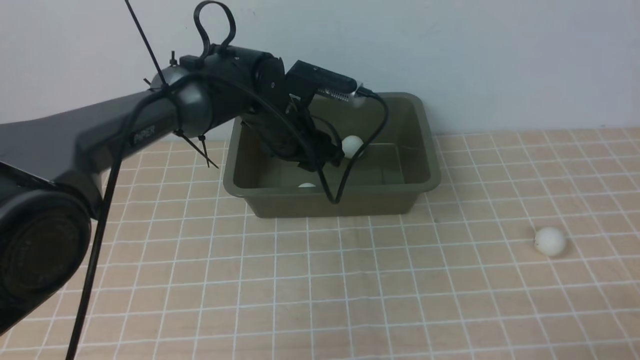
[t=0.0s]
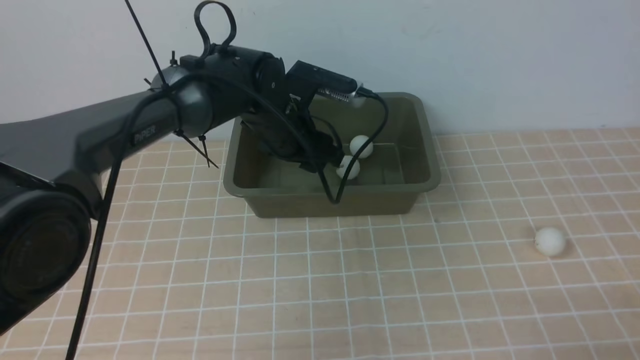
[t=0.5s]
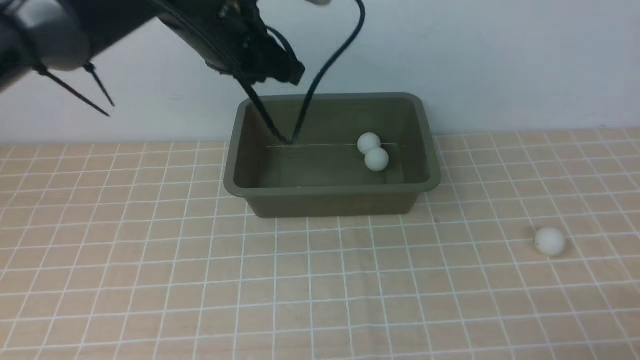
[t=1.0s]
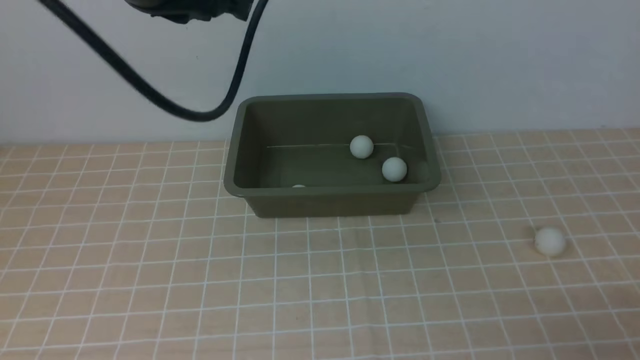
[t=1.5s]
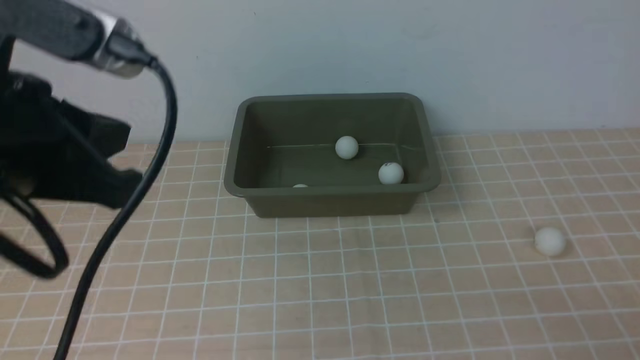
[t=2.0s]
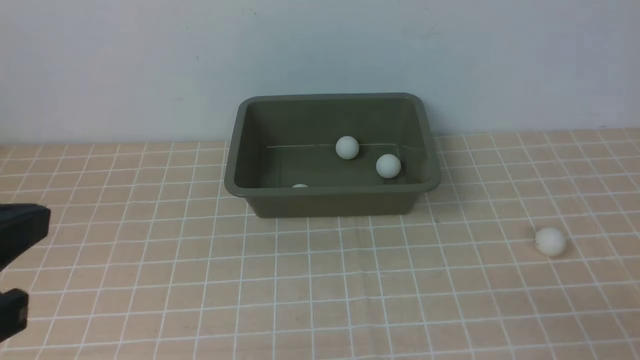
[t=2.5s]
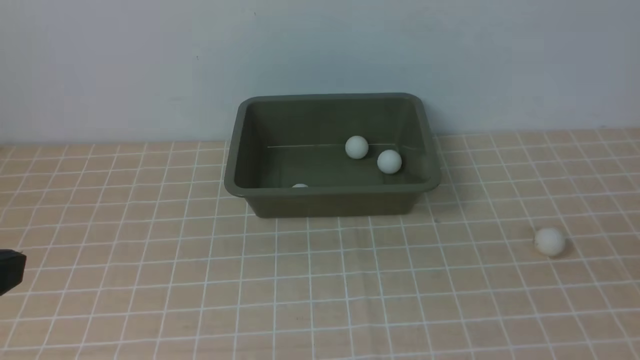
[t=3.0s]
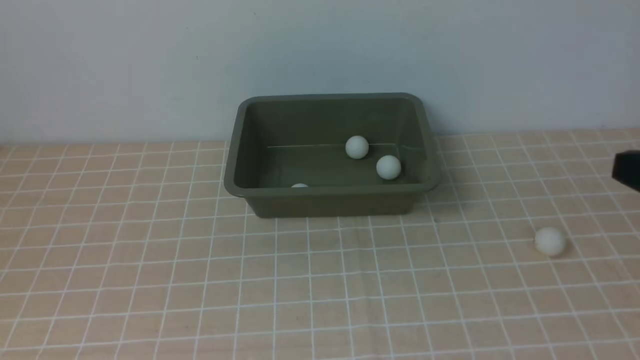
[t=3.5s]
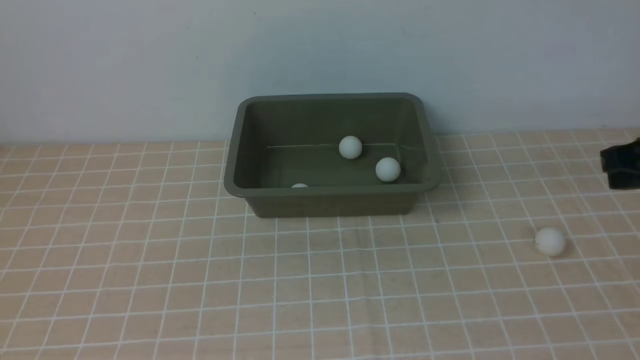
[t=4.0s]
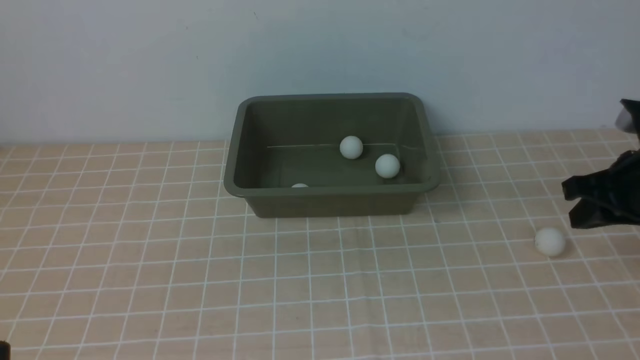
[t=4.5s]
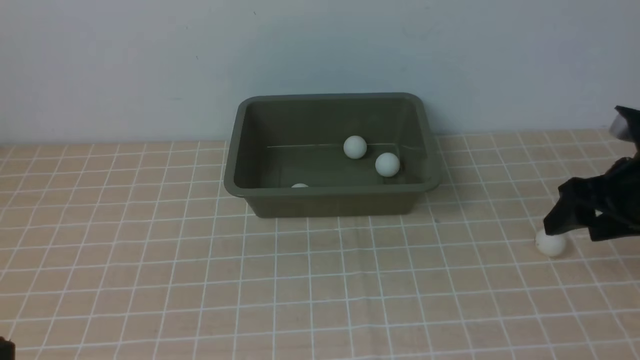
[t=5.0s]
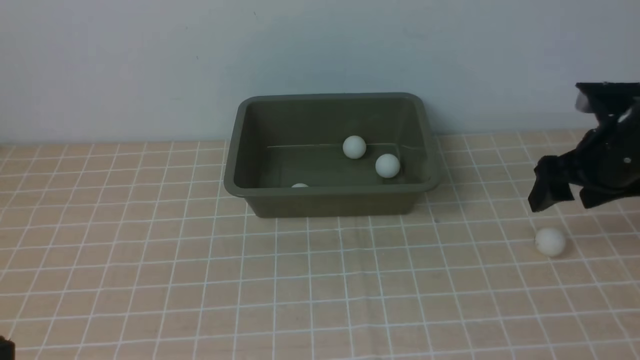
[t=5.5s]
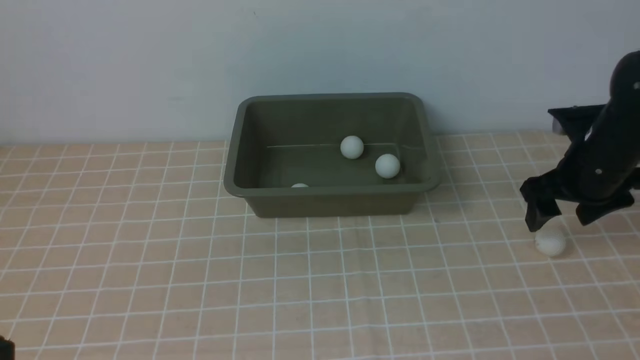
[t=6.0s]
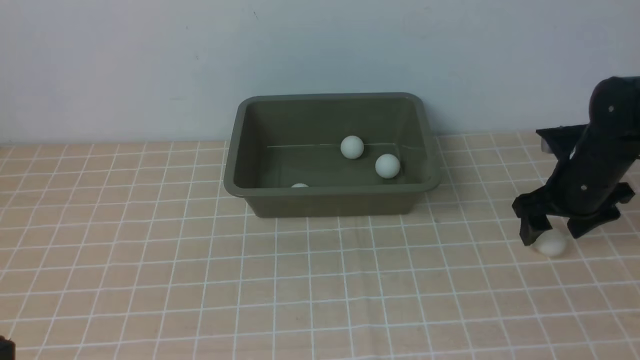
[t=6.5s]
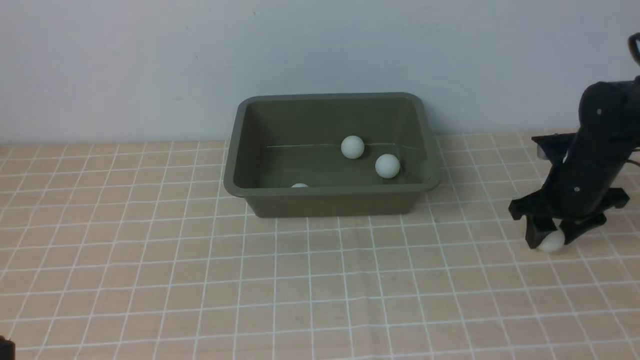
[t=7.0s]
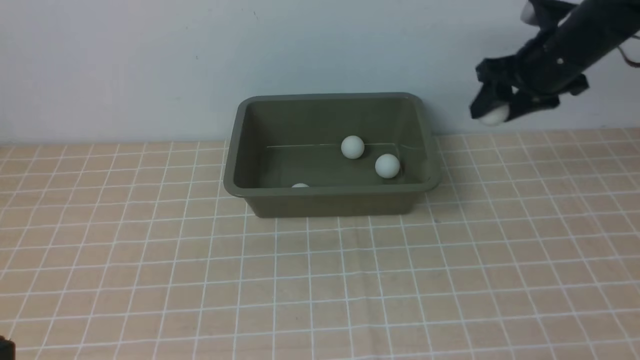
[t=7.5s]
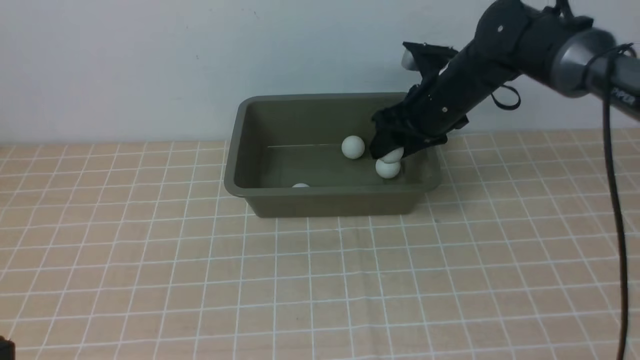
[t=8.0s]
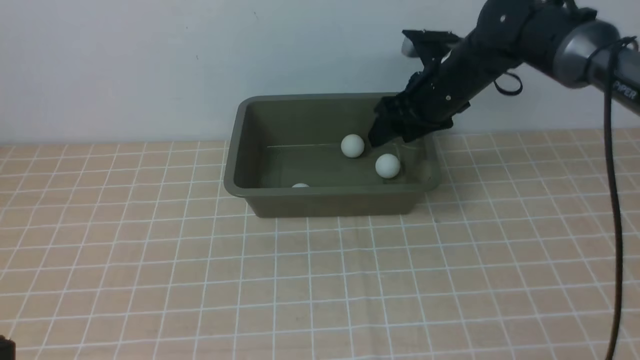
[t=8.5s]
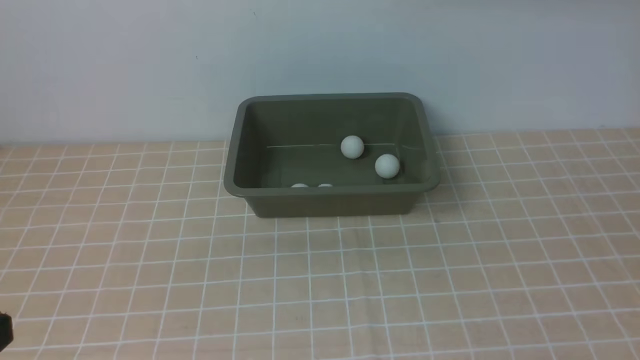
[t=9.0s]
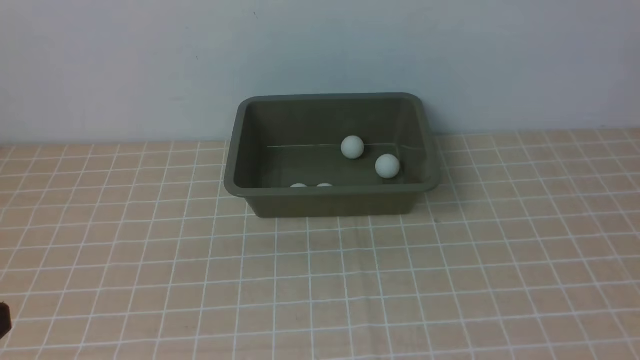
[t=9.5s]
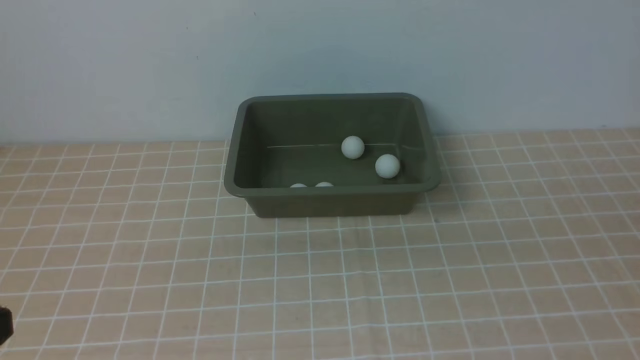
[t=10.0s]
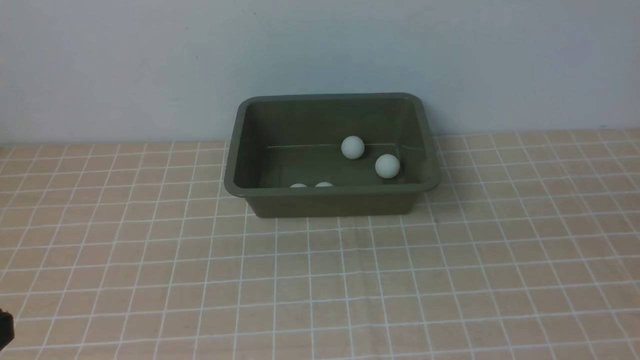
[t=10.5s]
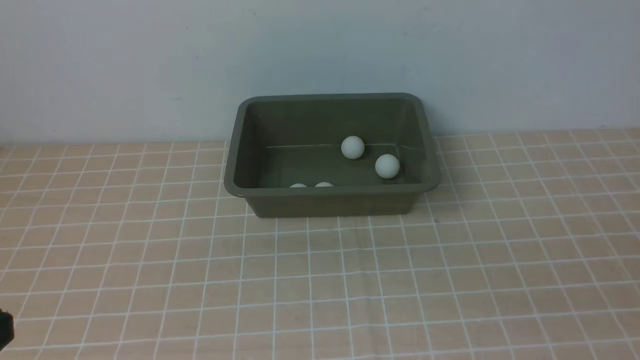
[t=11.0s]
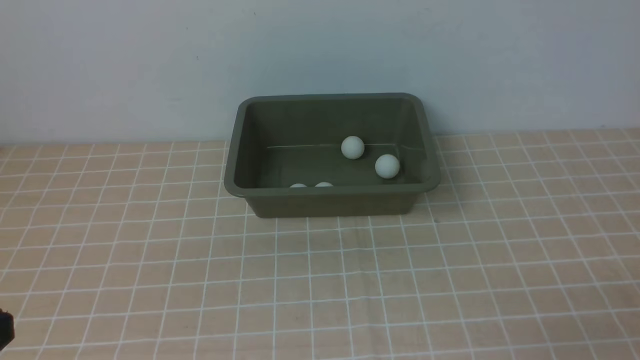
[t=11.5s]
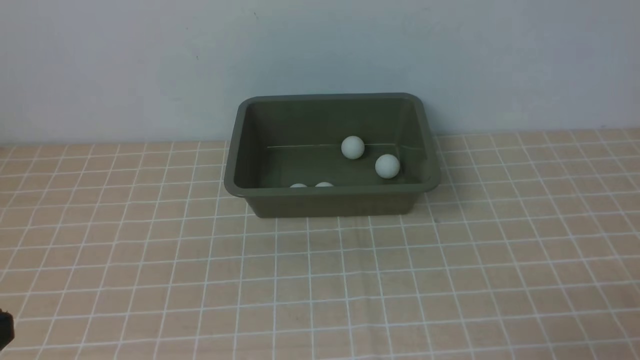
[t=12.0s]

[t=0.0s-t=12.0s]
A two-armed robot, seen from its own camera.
Step, t=1.0s to t=7.0s: use the right arm to clamp the table tennis ball closest to it.
Step, t=7.5s to t=8.5s: use the right arm to put the table tennis ball into the box.
t=0.0s to t=2.0s: The left gripper is displaced backward, upward and to the left by about 35 cm, and closes up.
t=2.0s to t=4.0s: The right gripper travels forward by about 20 cm. Meanwhile the left gripper heads backward and downward, covering about 15 cm.
t=4.0s to t=6.0s: The right gripper is displaced forward and downward by roughly 10 cm, and opens.
t=6.0s to t=8.0s: The right gripper goes some 15 cm to the left and forward.
t=8.0s to t=10.0s: The right gripper goes about 40 cm backward, and closes its fingers.

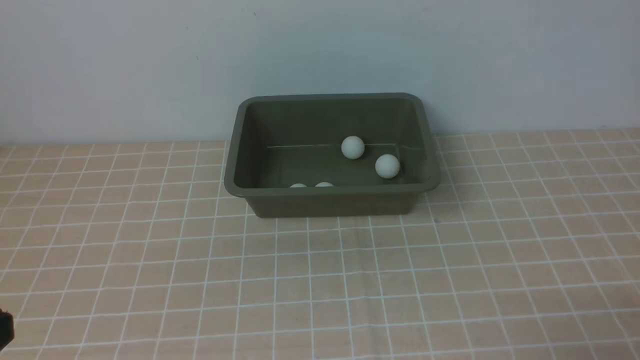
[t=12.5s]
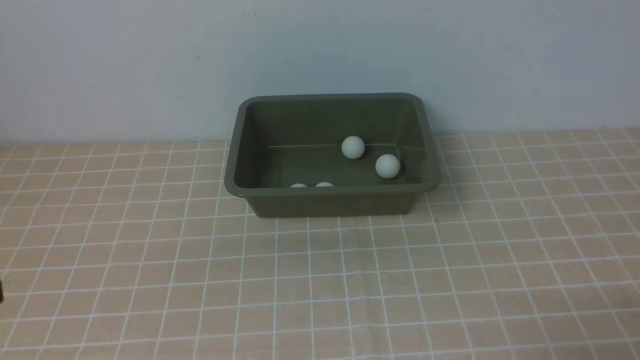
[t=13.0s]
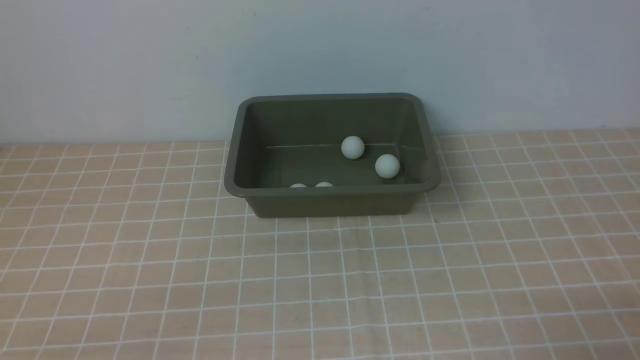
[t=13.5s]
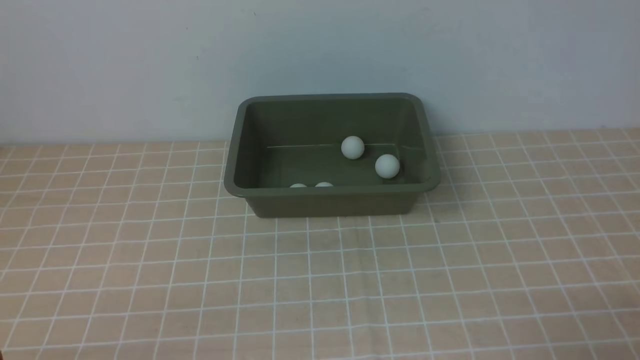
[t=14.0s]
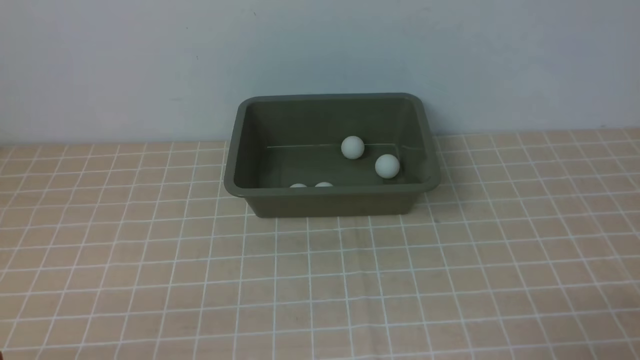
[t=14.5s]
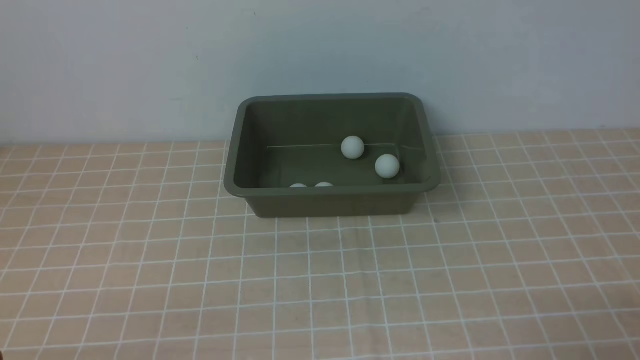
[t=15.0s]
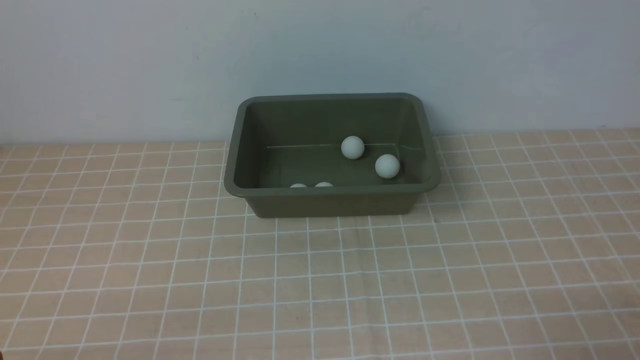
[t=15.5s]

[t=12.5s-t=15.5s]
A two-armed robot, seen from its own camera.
t=14.0s to t=15.5s: The two grippers keep their place.
